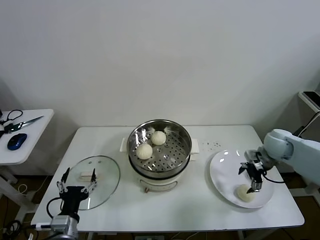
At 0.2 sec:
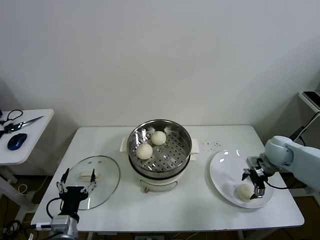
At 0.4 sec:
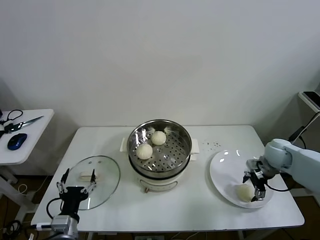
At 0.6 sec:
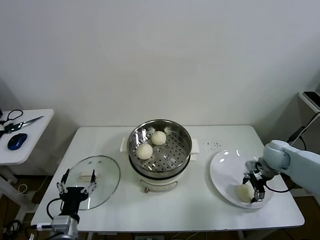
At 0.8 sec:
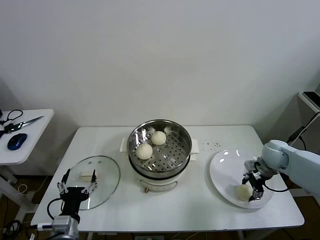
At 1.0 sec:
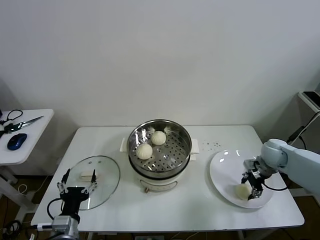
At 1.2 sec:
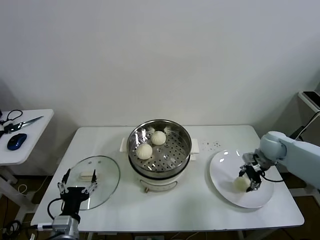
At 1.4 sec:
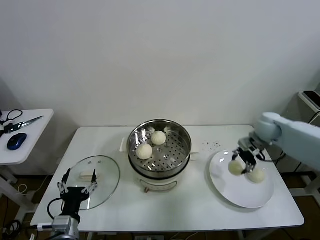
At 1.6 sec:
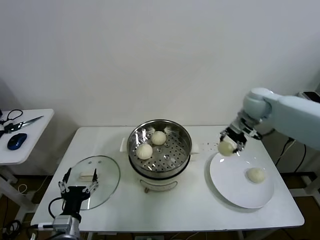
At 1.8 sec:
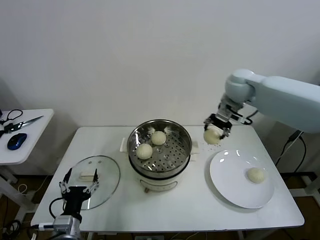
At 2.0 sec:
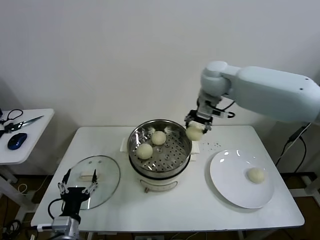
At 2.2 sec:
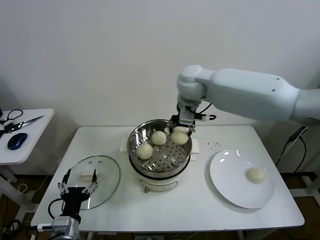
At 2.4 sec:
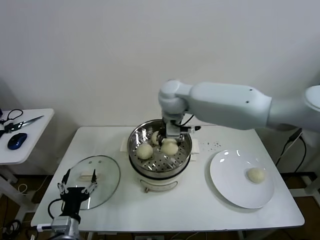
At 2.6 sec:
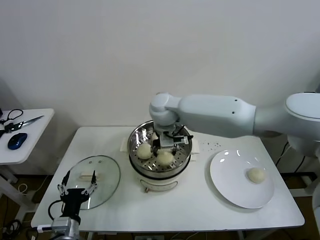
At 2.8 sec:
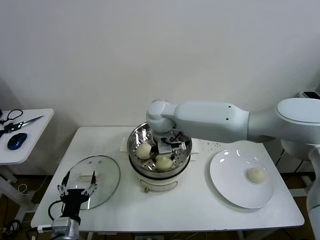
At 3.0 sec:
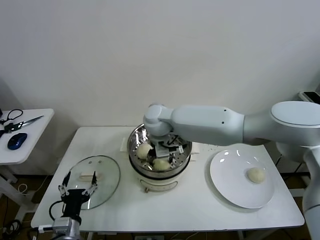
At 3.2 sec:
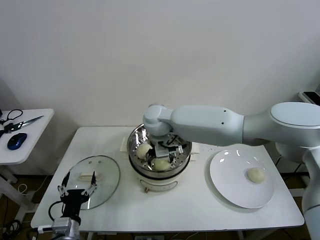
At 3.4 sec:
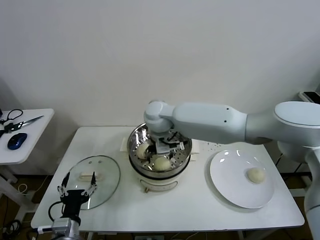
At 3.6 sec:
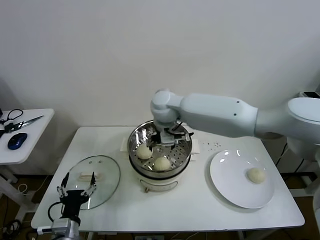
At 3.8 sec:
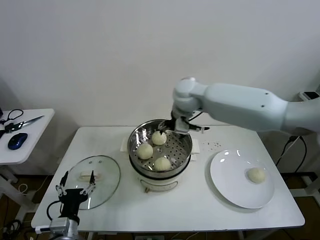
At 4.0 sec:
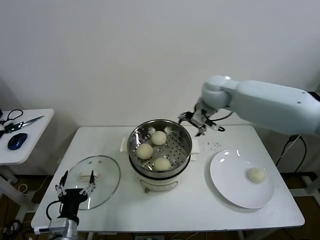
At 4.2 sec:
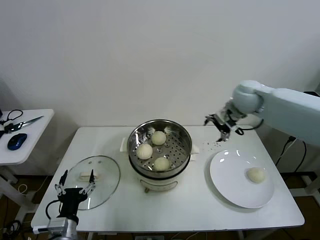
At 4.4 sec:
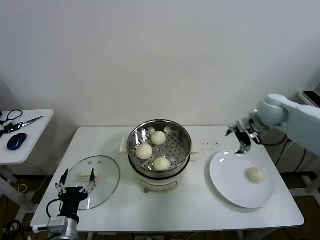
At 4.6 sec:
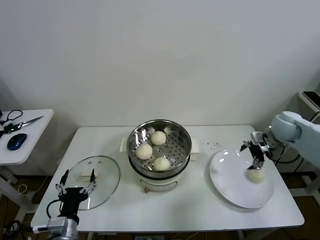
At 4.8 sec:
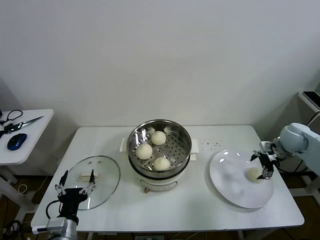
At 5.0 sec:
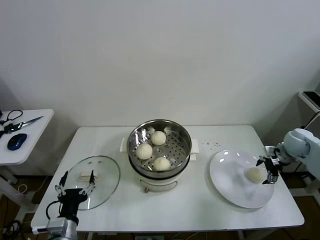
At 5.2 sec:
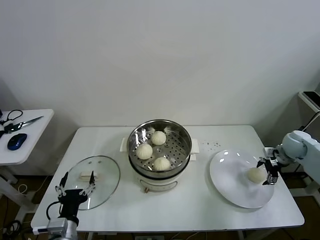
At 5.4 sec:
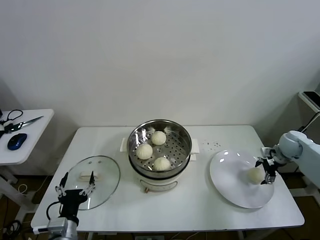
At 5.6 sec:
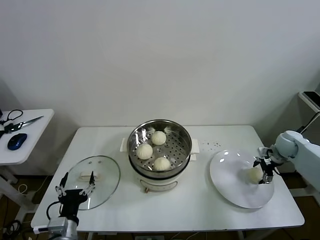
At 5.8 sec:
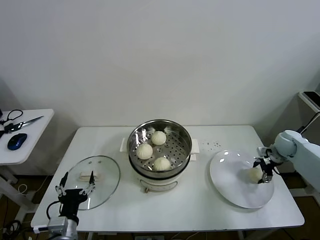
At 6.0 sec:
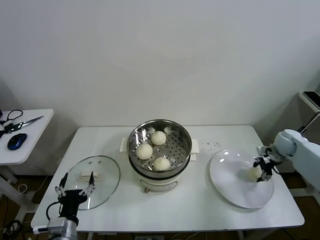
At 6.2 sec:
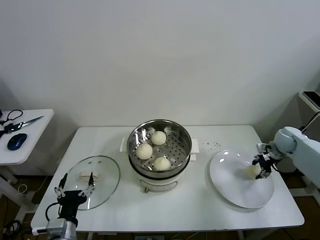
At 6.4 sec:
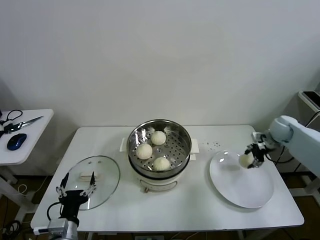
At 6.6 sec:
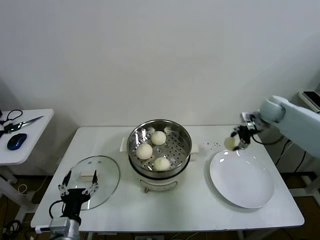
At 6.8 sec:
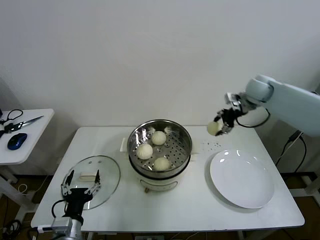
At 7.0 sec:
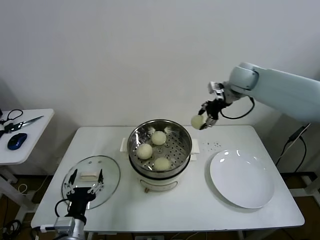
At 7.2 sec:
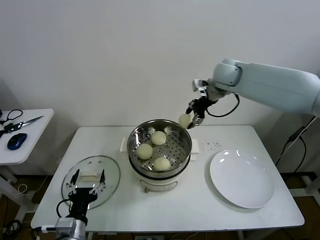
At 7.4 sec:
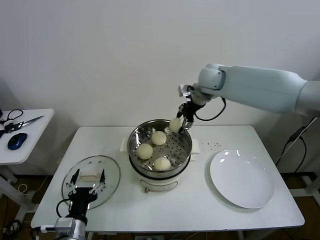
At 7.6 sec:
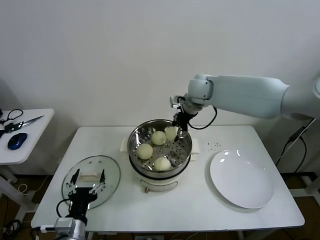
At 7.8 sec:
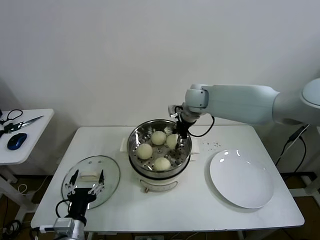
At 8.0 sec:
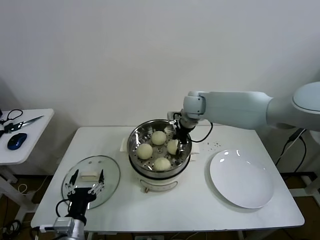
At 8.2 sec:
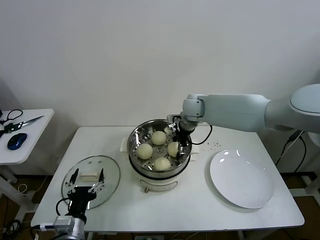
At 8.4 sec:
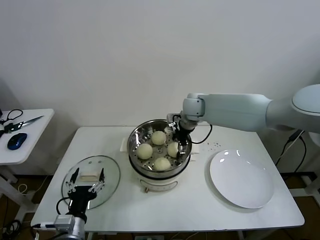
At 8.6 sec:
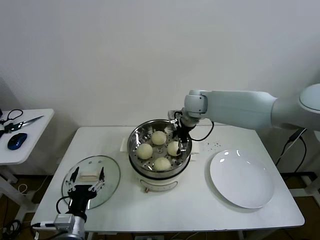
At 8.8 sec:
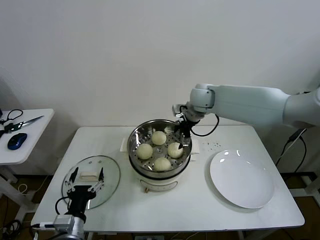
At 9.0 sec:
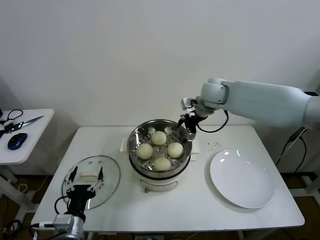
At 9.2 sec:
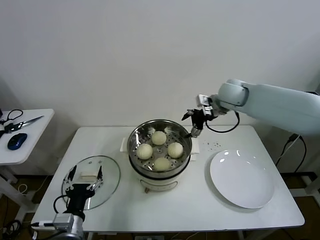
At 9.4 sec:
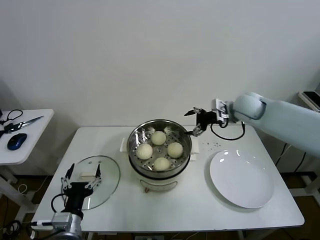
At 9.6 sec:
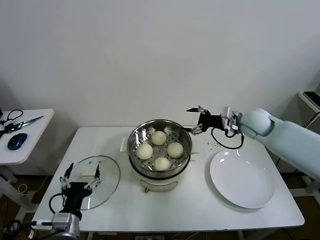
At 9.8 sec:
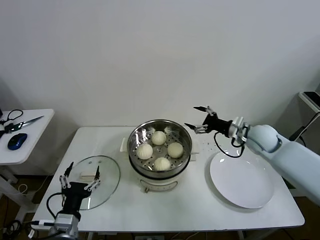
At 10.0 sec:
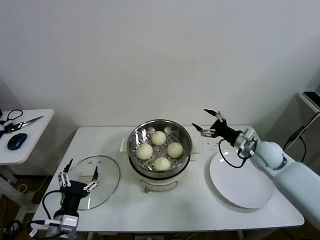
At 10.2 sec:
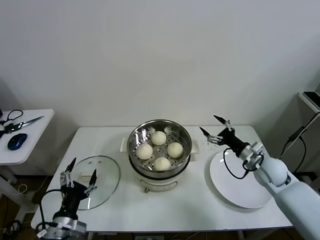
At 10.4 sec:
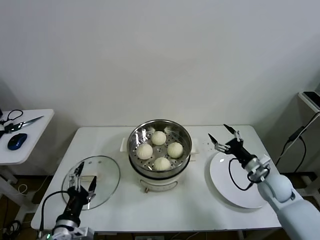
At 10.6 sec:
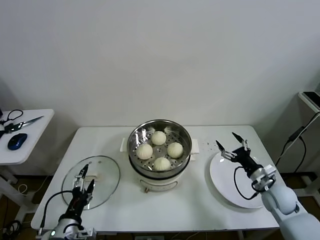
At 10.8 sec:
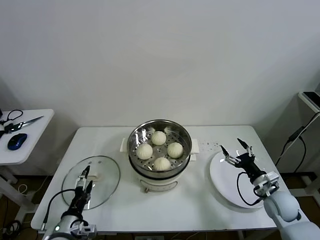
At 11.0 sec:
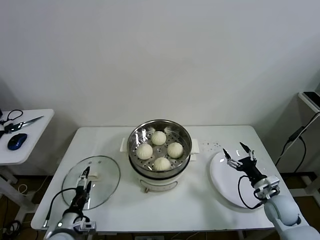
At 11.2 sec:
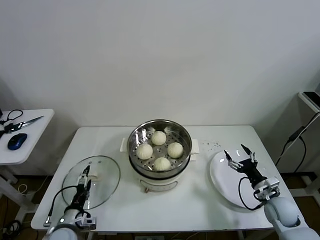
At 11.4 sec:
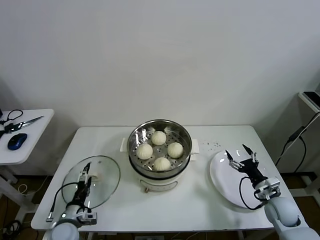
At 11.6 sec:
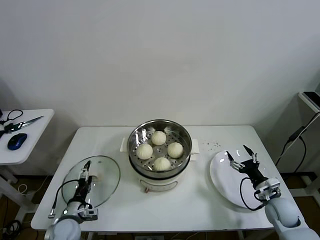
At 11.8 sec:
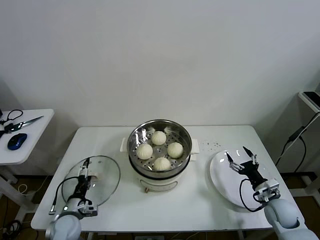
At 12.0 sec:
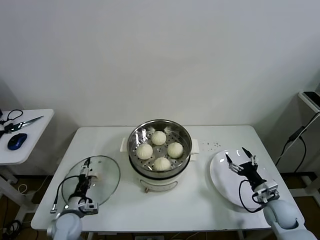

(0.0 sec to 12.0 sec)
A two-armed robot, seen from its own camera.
Task of the whole recording: take steamed baozi put them in steamer then cover it.
Step, 1.0 sec - 3.2 sec: Place the baozi on the steamer with right gripper.
Step, 3.4 sec - 5.8 sec: Grasp the baozi in the plate with right gripper.
Step, 6.0 sec - 8.4 sec: Place the baozi on the steamer with right gripper.
0.0 sec - 1.6 sec: The right gripper travels upward, to the left and forward by approximately 20 cm, and closes up.
1.6 sec - 3.0 sec: The right gripper moves to the left, approximately 30 cm, and opens its fingers.
3.0 sec - 4.4 sec: The right gripper shifts roughly 35 cm to the right, and opens up.
4.4 sec - 6.0 sec: The right gripper shifts approximately 20 cm downward and to the right, and closes.
6.0 sec - 7.6 sec: The right gripper shifts roughly 40 cm to the left and upward.
7.6 sec - 9.0 sec: The right gripper opens its fingers.
9.0 sec - 10.4 sec: The right gripper heads downward, backward and to the right, covering about 35 cm.
10.4 sec - 12.0 sec: The left gripper goes some 20 cm downward, forward and to the left, while the right gripper travels downward and backward by approximately 10 cm.

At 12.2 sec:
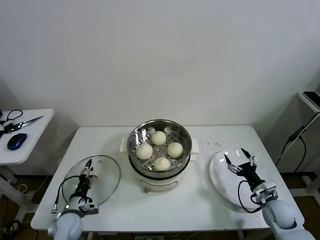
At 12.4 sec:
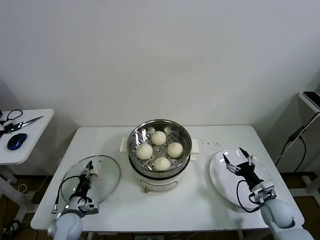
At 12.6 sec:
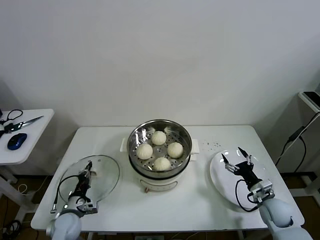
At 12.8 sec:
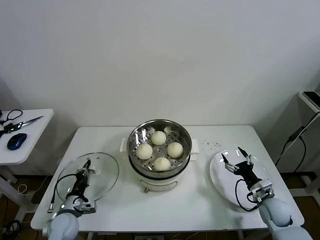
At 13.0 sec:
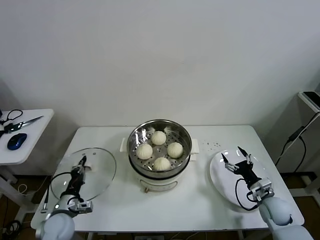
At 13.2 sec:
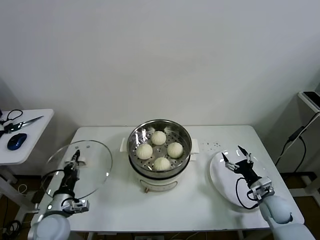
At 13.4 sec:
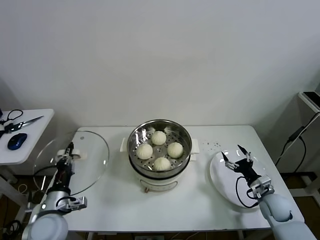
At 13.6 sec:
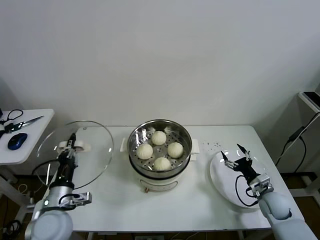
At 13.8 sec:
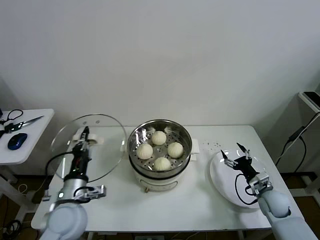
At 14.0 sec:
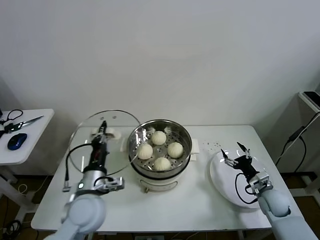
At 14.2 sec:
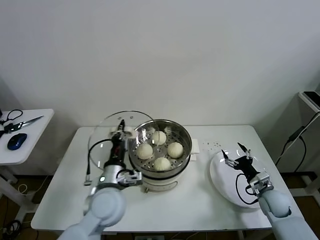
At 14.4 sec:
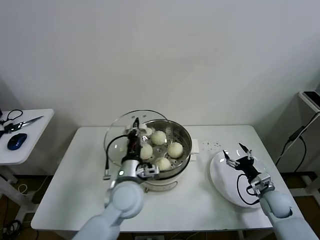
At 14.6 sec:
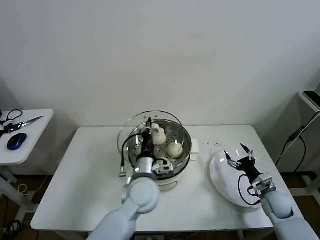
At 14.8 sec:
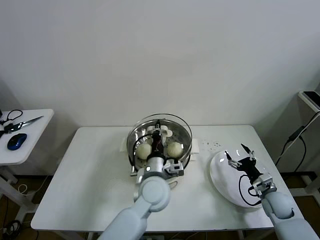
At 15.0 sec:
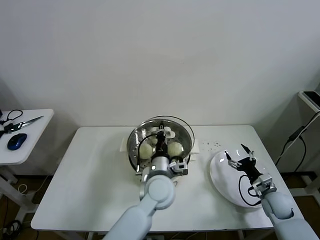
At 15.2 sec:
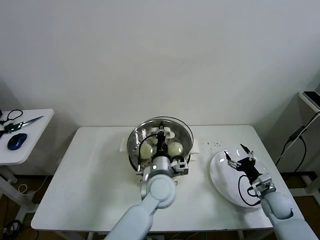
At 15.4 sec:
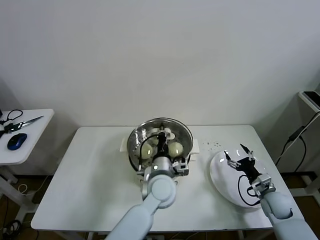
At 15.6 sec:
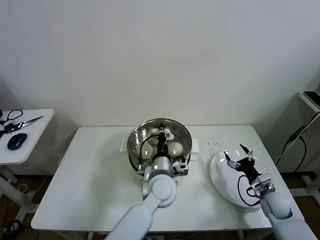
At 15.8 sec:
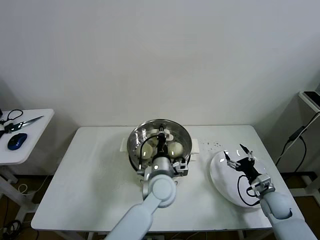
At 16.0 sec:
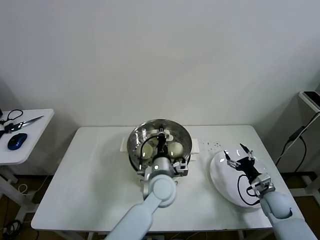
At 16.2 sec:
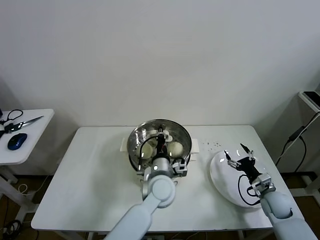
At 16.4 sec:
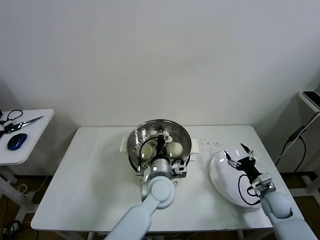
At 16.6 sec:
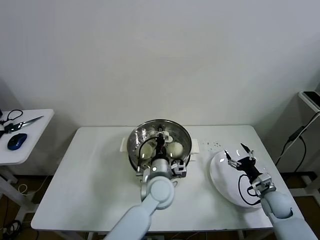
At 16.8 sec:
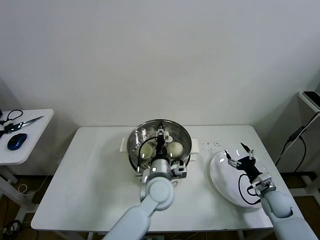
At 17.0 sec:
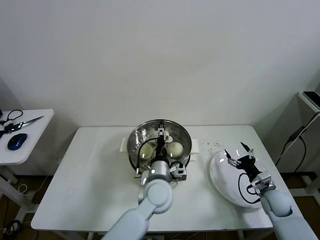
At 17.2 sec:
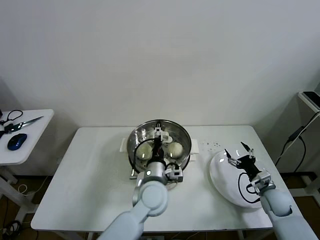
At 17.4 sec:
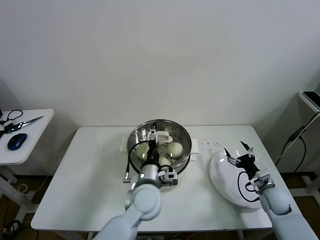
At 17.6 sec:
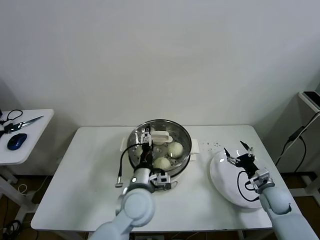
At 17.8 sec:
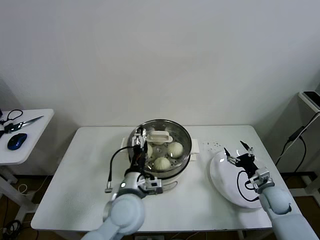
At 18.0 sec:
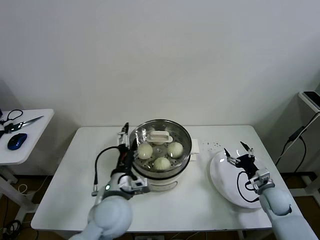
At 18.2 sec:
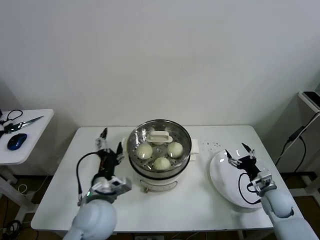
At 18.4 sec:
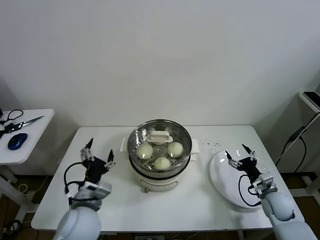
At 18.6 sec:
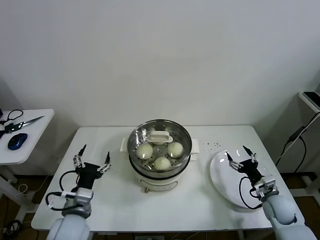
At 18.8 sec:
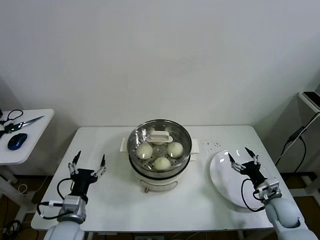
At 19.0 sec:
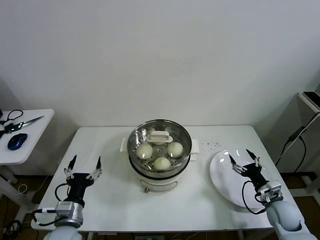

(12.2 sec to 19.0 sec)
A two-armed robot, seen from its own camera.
Task of the whole recording: take steamed baozi put them in steamer then cover it.
Step, 12.8 sec - 17.0 sec: Place the pot lid on the steamer with left gripper.
12.2 sec - 13.6 sec: The left gripper shifts about 15 cm upward, and closes its fingers.
13.6 sec - 15.0 sec: The left gripper moves to the right, approximately 30 cm.
15.0 sec - 16.2 sec: There are only small adjustments of the grippers.
16.2 sec - 17.6 sec: The left gripper shifts about 5 cm to the left, and opens its fingers.
17.6 sec - 19.0 sec: The left gripper goes about 20 cm to the left.
